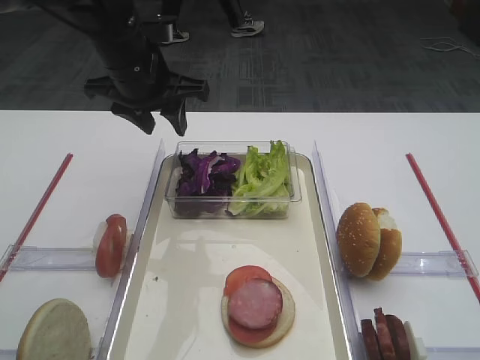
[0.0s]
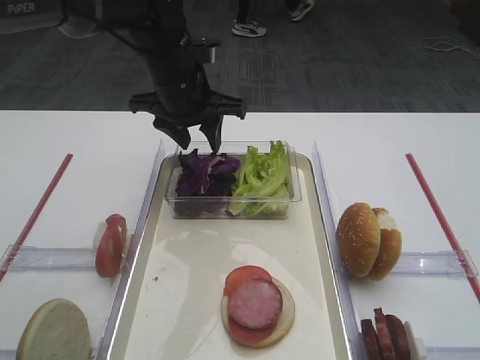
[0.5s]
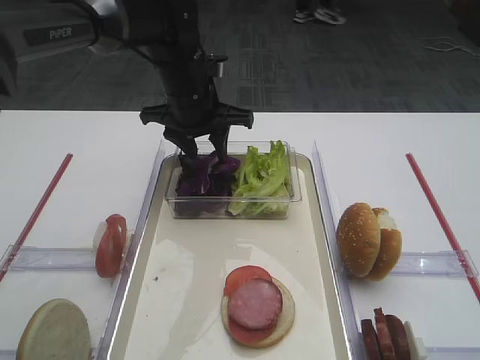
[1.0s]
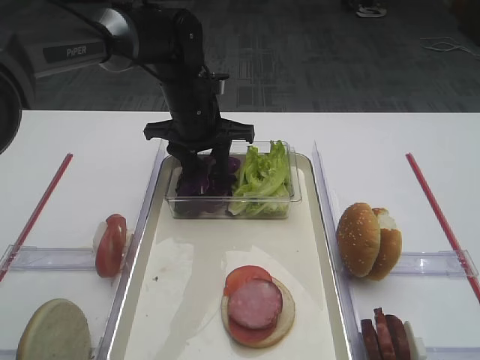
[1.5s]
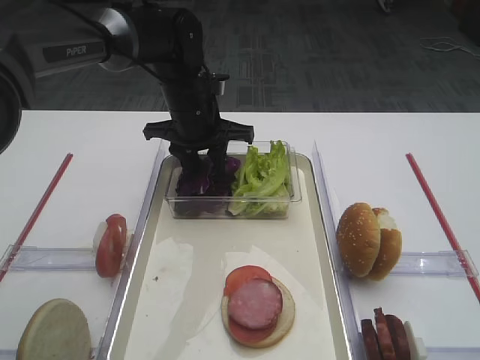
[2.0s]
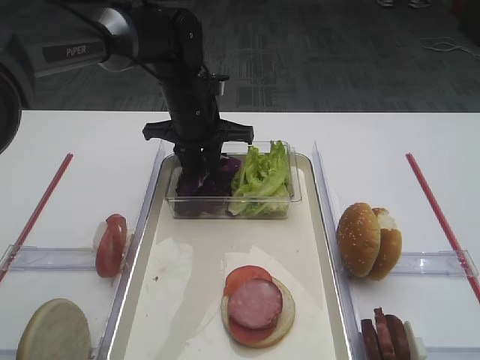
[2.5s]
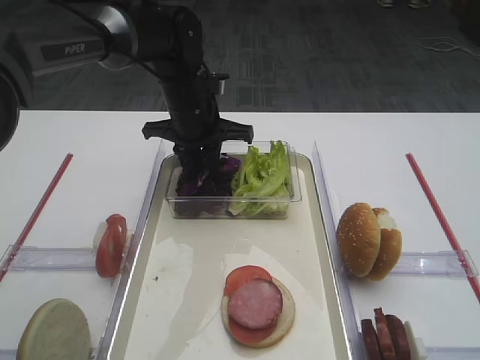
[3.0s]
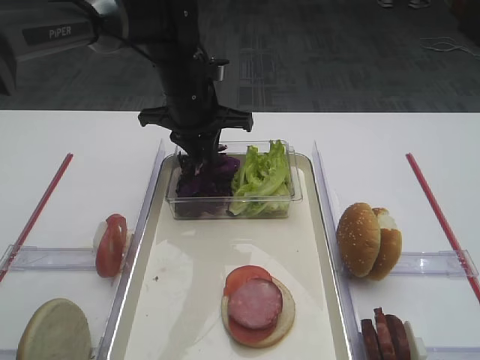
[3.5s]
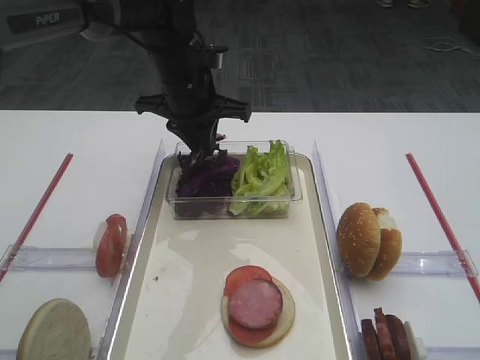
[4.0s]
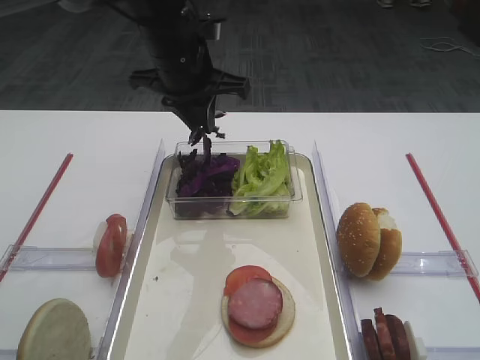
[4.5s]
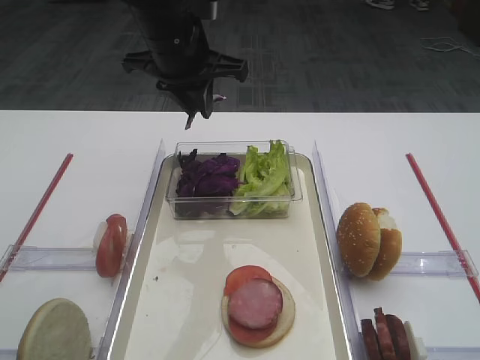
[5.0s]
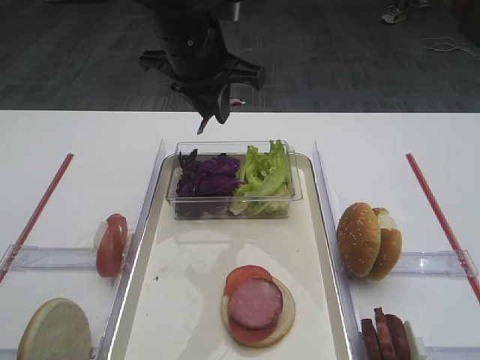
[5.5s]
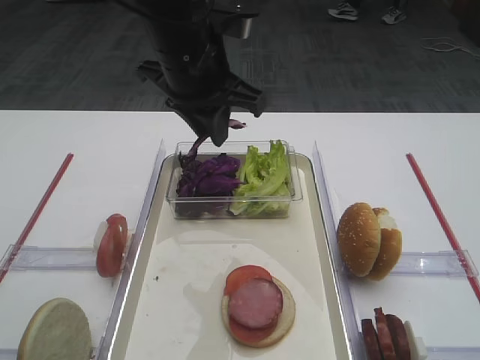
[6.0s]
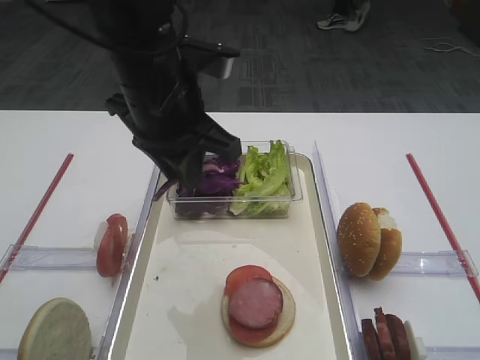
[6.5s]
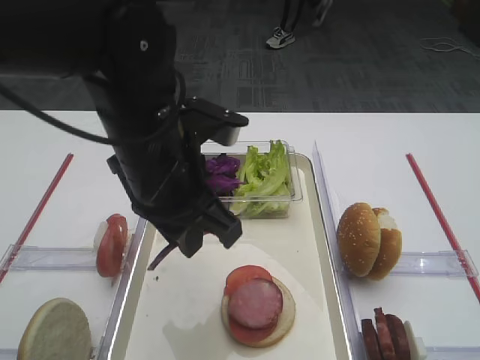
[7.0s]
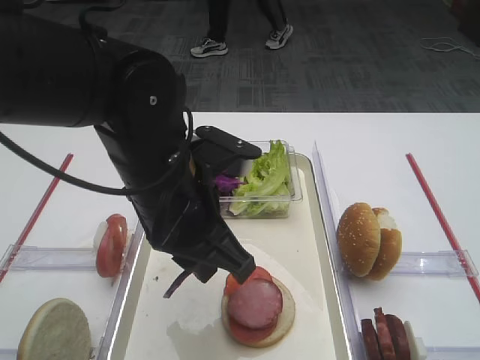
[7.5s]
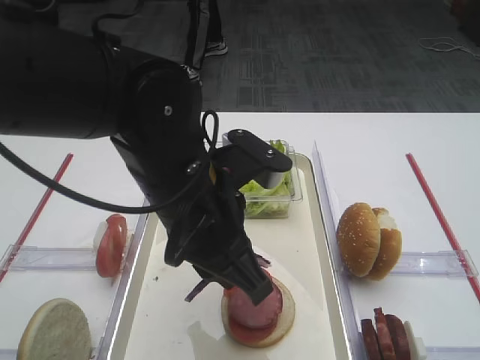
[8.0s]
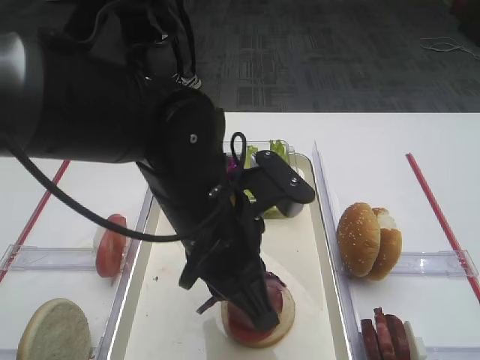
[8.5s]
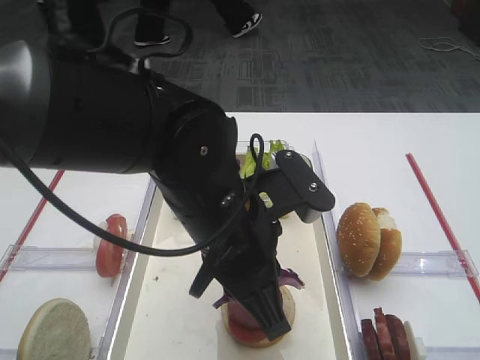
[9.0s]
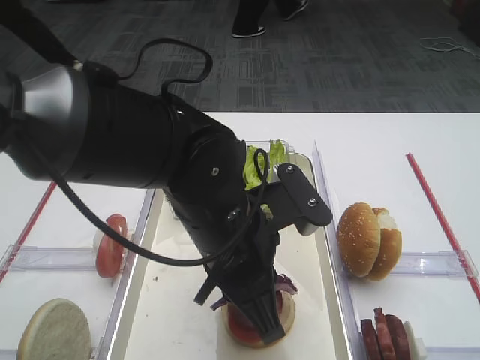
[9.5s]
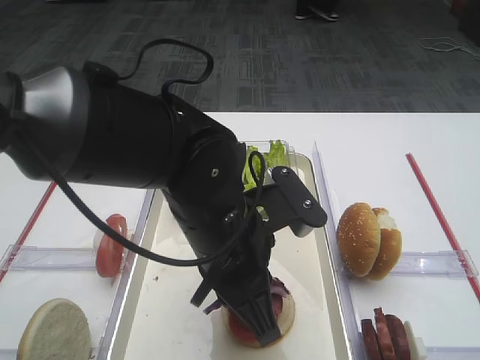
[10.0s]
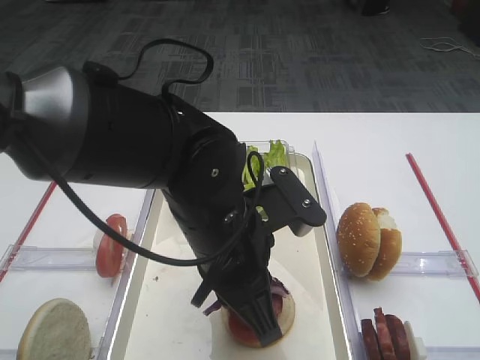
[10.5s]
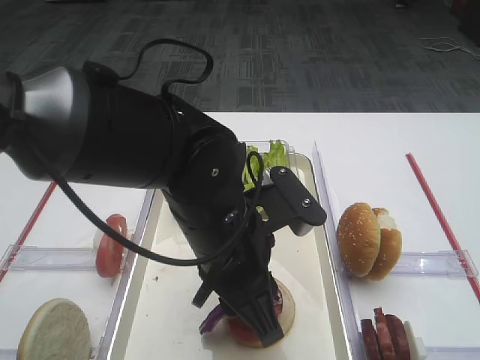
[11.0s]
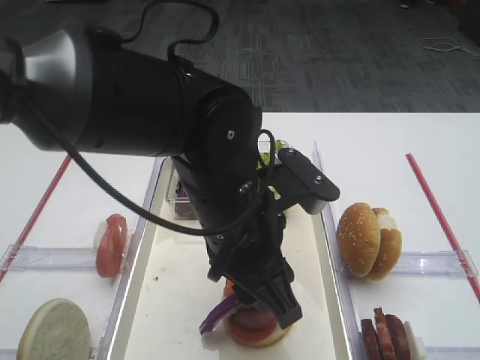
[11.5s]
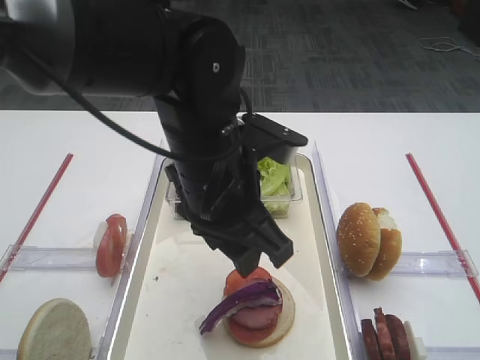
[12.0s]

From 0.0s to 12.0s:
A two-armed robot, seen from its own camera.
Step, from 0.0s to 5.5s: Pick up the purple cabbage with the left gripper.
Step, from 6.0s to 12.0s: Place the purple cabbage on the cutlet with the left gripper.
From 0.0s to 2.0s: The left gripper travels downward and to the right by some 10 cm.
From 2.0s to 4.0s: The left gripper closes its fingers.
From 4.0s to 6.0s: The left gripper heads backward and upward, covering approximately 10 cm.
From 6.0s to 8.0s: The left gripper heads backward and downward, covering some 15 cm.
From 10.0s to 12.0s: The left gripper moves roughly 5 cm, and opens its fingers.

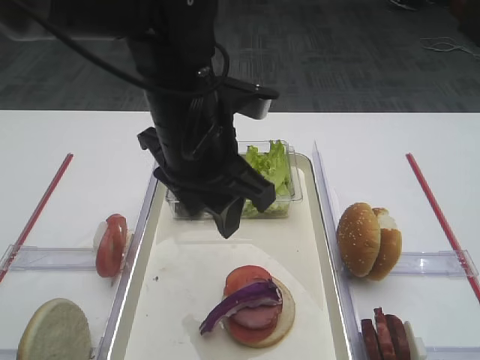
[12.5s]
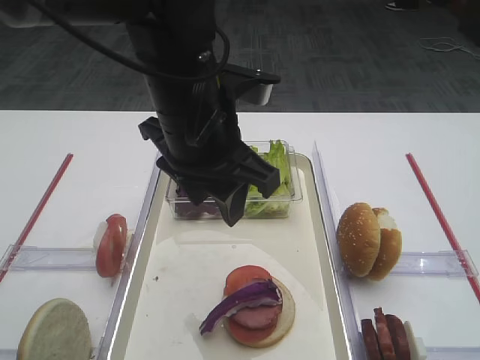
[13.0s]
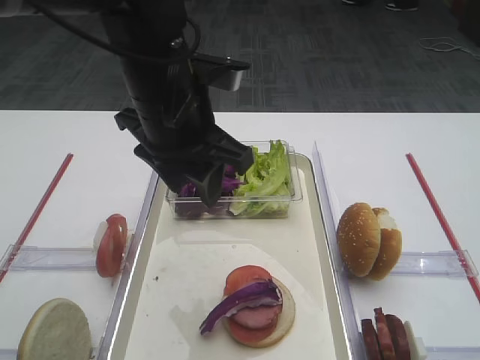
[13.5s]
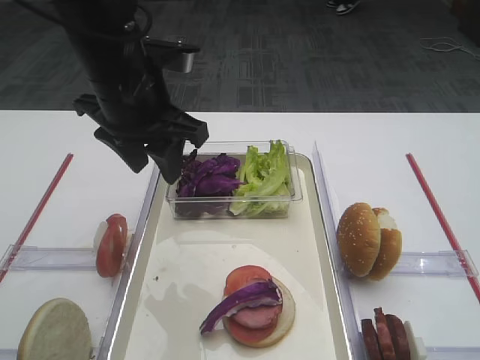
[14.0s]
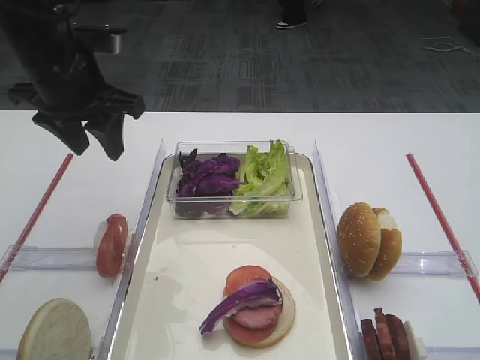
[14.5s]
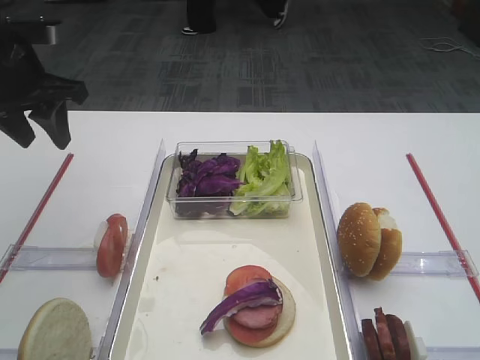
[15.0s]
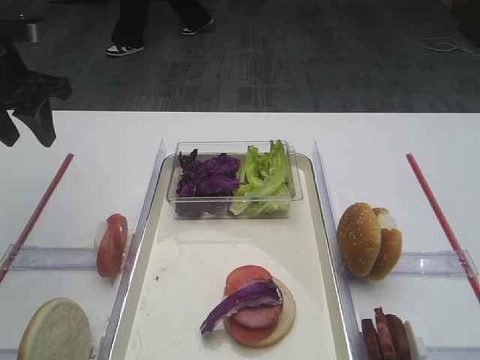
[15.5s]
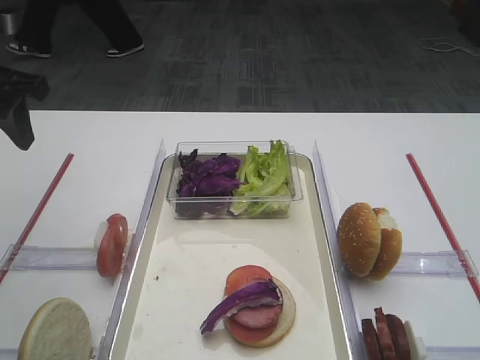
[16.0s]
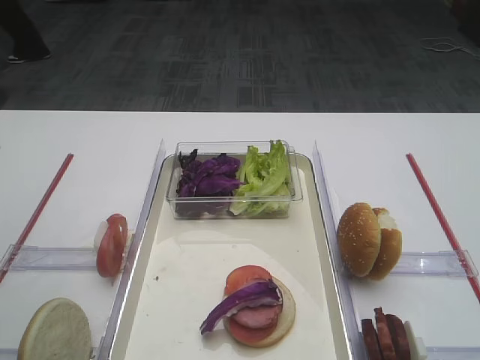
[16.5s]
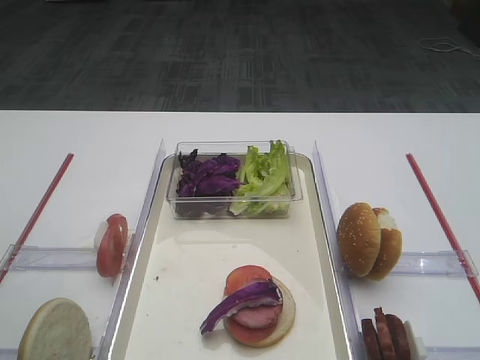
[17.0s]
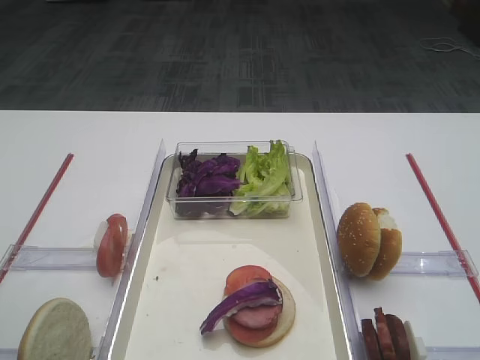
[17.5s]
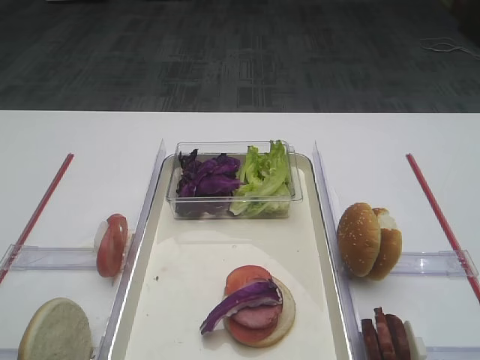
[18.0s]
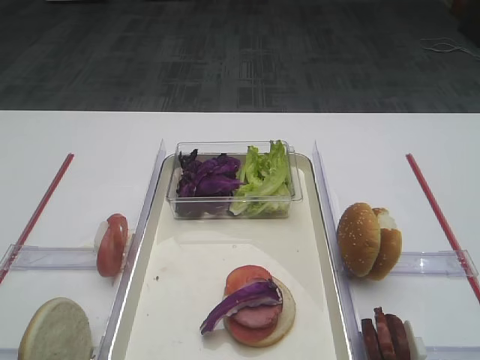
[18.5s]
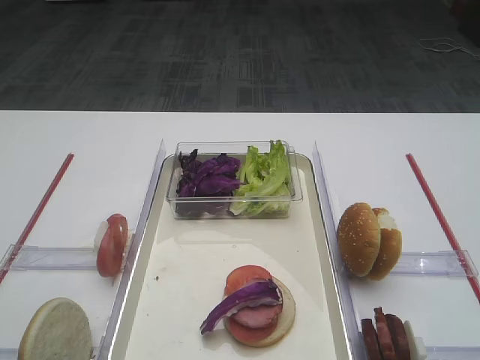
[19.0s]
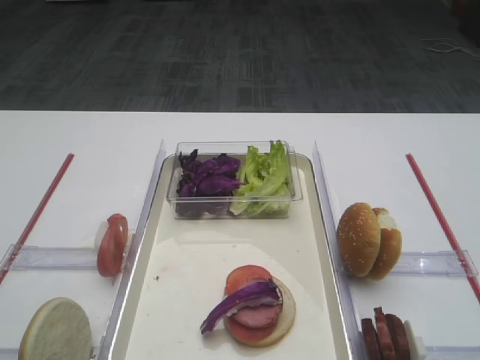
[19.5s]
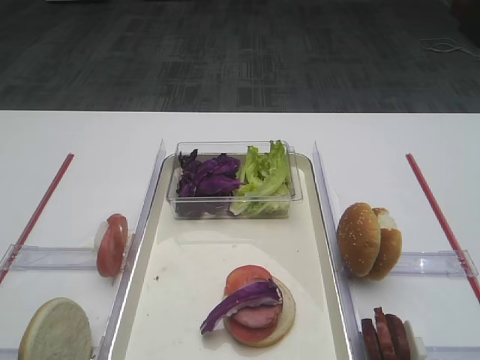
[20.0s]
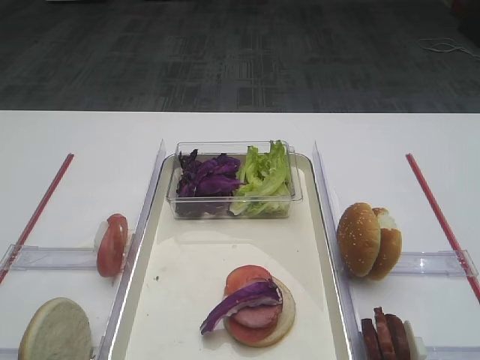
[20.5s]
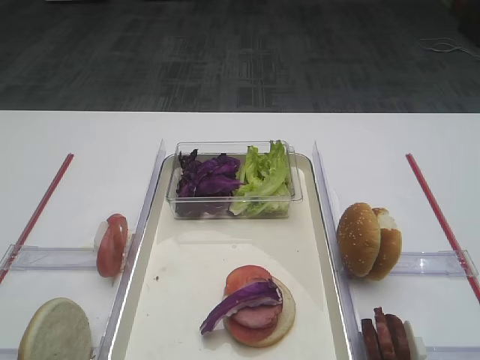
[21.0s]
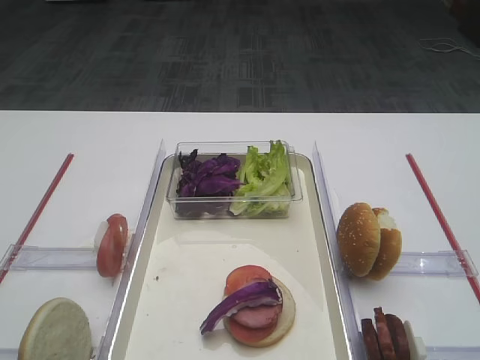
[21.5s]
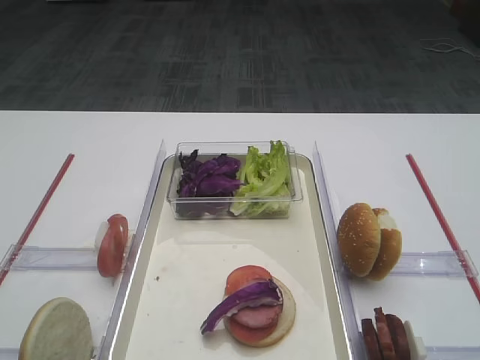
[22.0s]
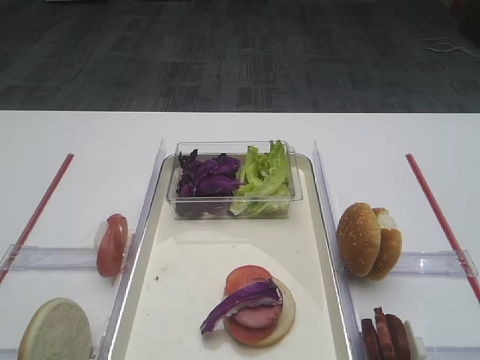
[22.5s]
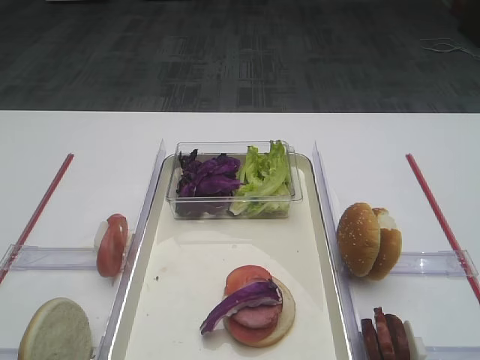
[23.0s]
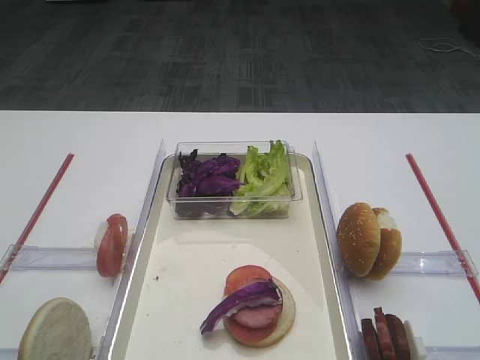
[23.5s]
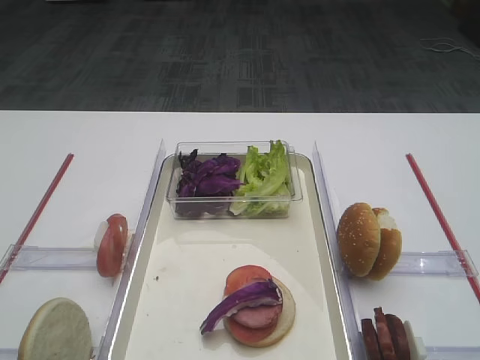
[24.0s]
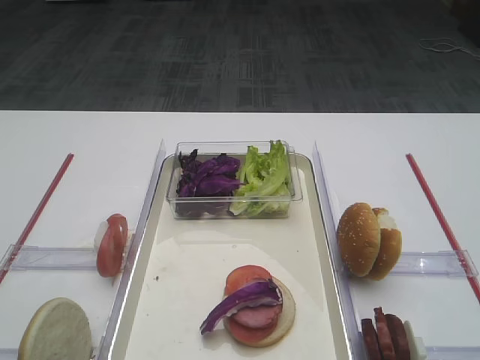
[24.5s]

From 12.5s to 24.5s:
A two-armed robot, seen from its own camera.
From 12.5s to 14.5s: The left gripper travels to the left and forward by about 15 cm.
From 14.5s to 16.5s: The left gripper moves backward and to the left, approximately 15 cm.
From 22.5s to 24.5s: The two grippers keep their place.

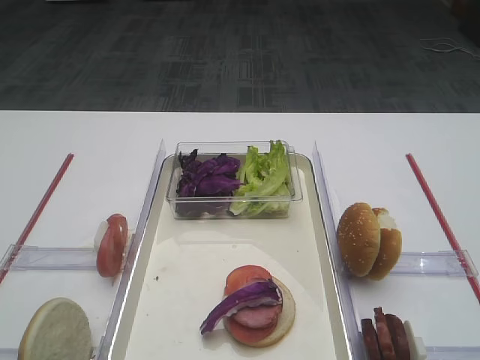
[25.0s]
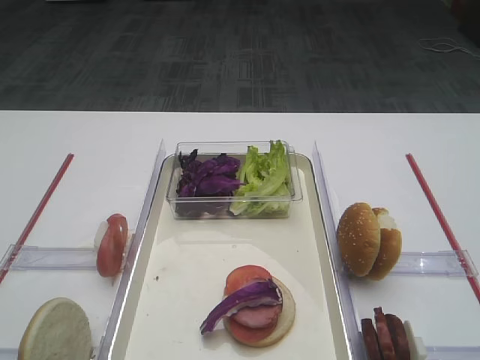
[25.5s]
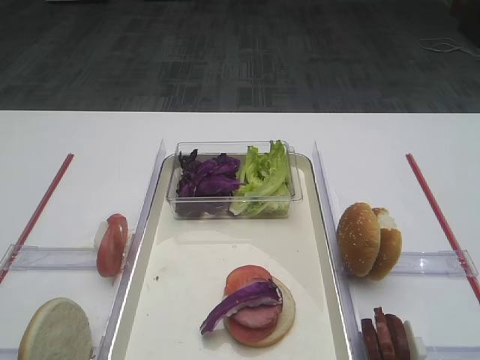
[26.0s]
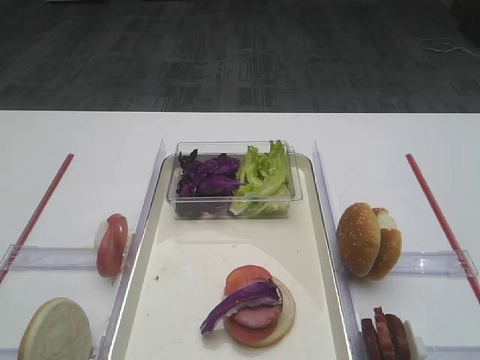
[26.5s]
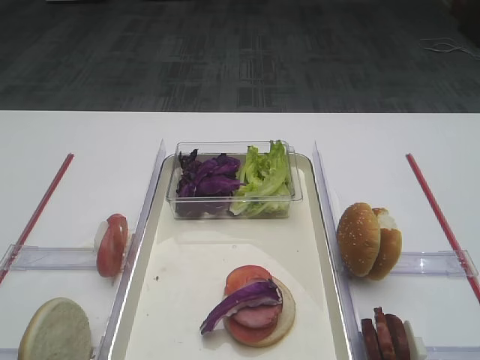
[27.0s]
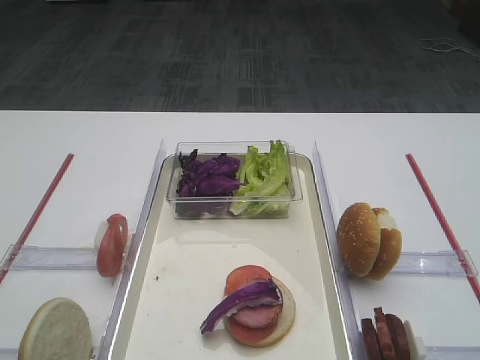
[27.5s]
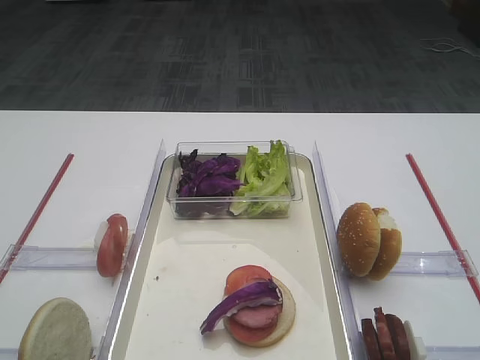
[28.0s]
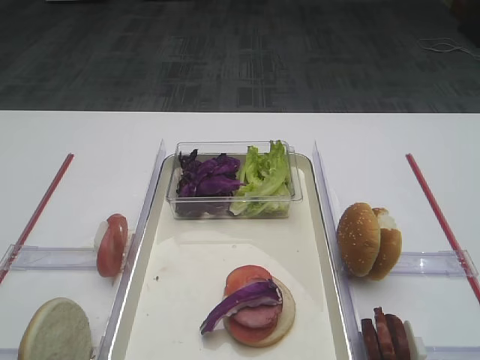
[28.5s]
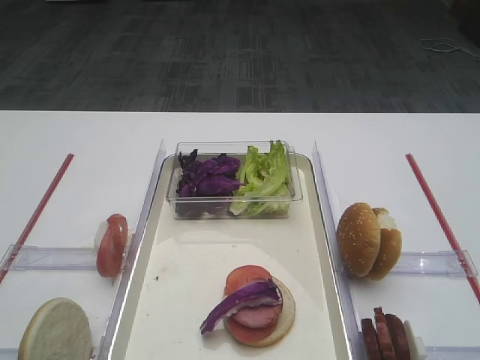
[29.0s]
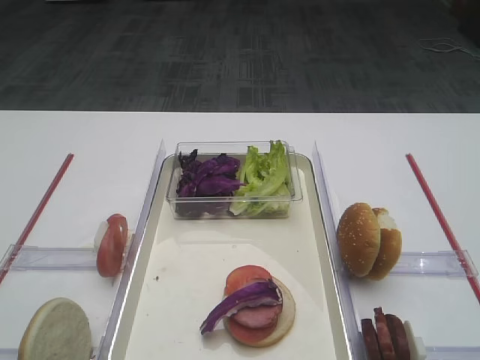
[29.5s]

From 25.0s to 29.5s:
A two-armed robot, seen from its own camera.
From 25.0s to 29.5s: The two grippers keep their place.
